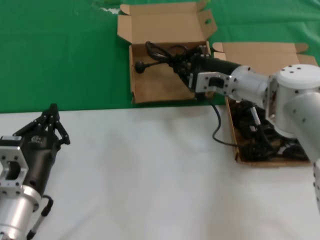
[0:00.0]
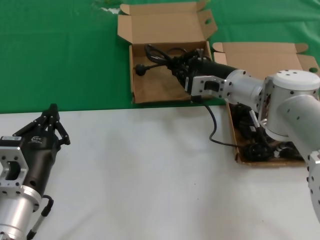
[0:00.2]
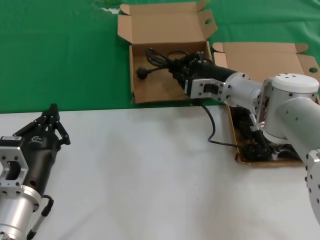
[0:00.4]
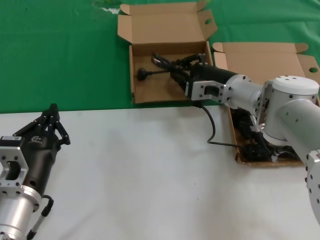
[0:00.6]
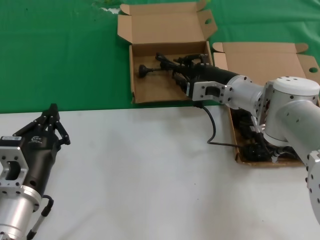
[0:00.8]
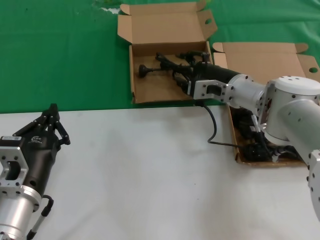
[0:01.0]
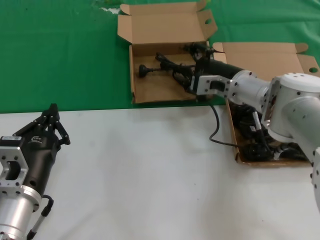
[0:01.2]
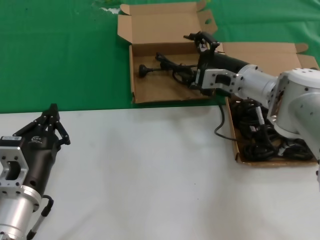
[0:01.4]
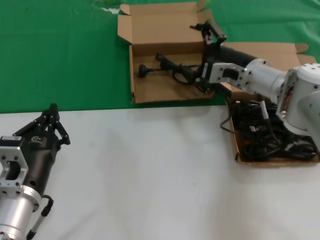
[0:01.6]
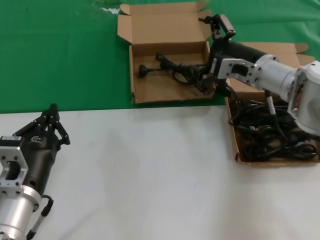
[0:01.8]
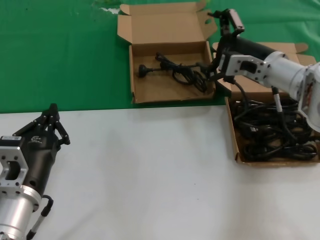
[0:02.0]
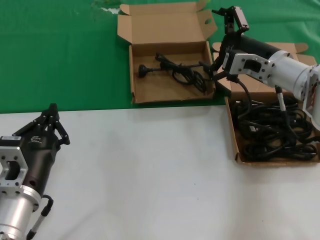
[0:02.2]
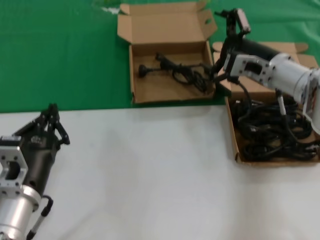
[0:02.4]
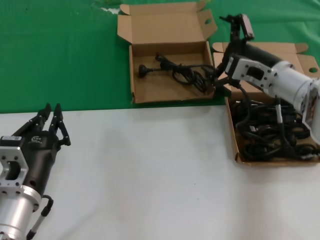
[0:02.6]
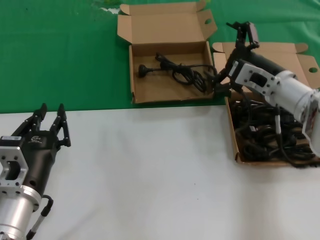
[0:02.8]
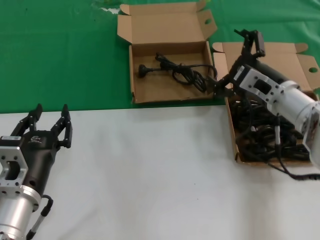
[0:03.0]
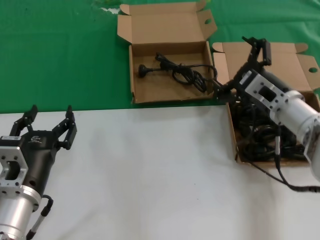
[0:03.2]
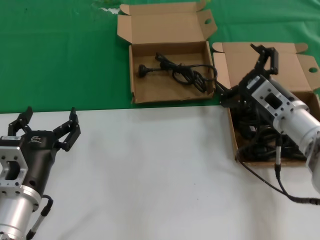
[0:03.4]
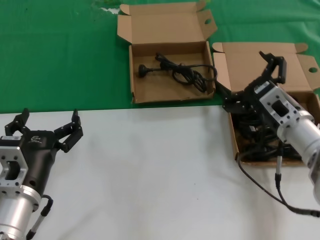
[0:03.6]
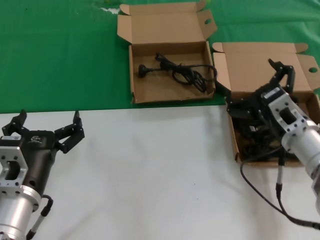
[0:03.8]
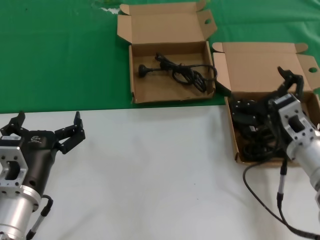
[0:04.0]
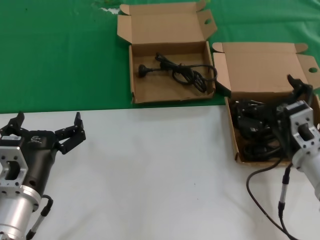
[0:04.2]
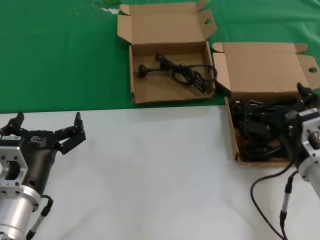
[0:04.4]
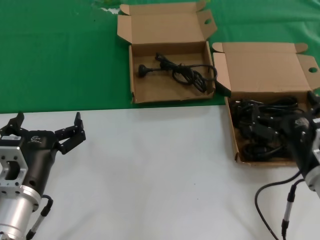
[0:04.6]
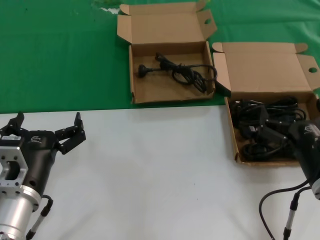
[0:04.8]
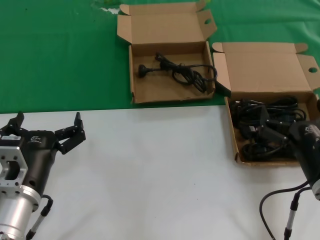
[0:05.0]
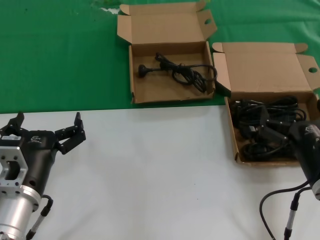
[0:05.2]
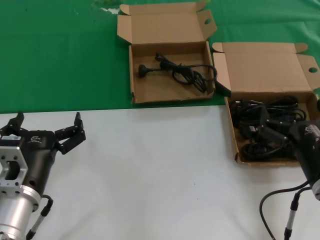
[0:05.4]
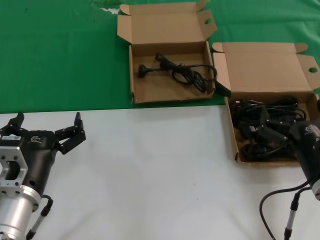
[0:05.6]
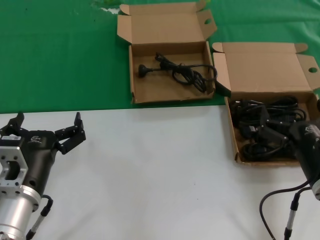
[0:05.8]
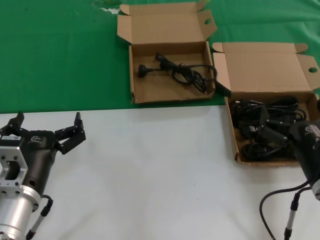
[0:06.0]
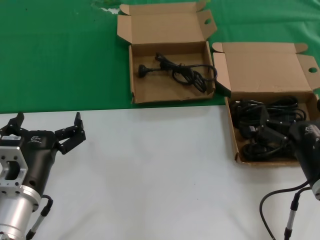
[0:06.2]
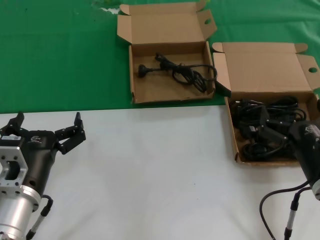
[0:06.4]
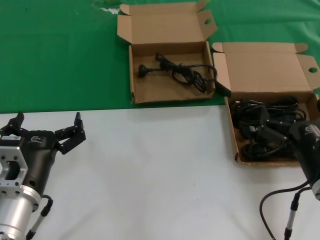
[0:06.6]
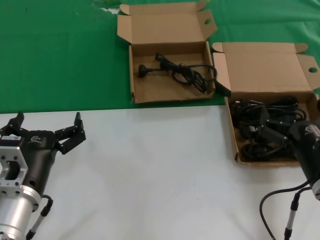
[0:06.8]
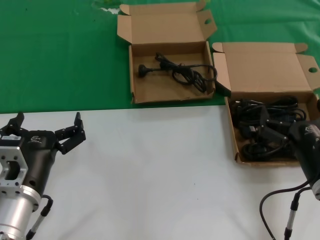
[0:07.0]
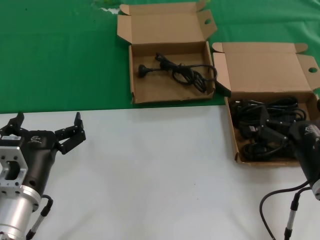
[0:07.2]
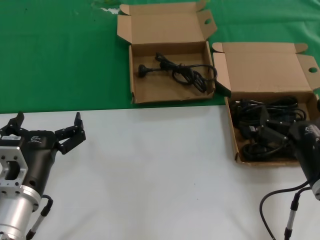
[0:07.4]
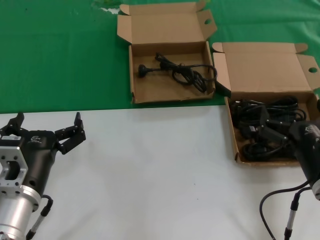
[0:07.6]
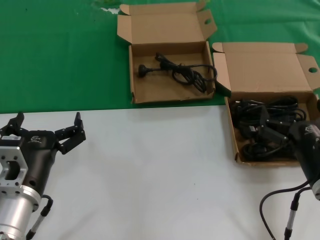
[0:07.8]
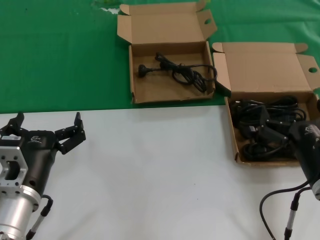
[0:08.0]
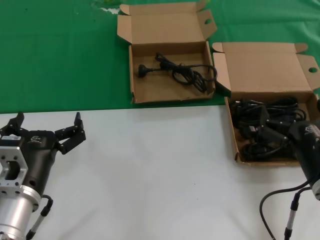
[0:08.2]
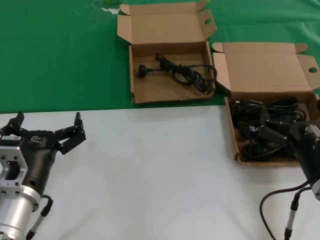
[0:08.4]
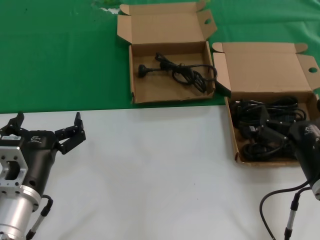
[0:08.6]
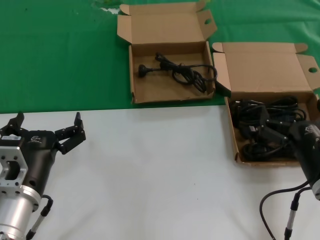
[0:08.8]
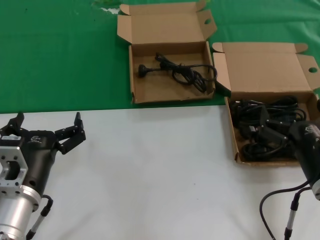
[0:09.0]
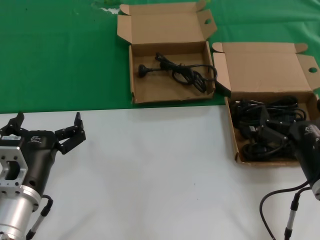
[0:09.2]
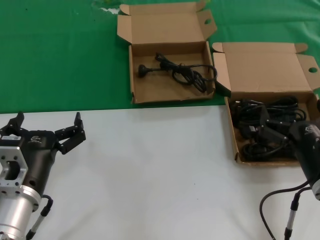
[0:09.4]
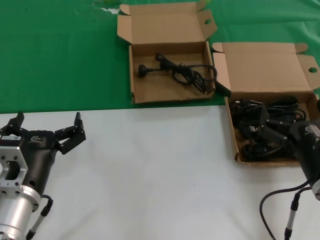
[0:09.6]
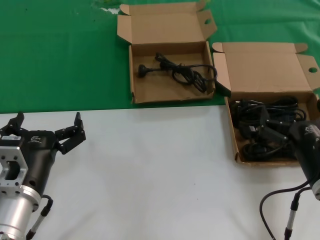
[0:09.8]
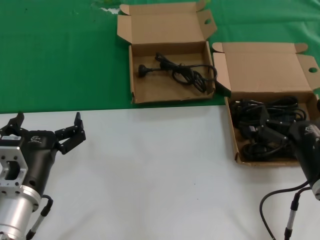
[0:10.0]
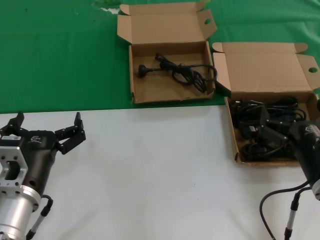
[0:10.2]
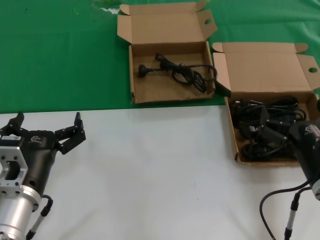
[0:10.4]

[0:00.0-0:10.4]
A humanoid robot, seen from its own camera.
Task of the whole recording: take the parts from the box containing them and put them into an empty box.
0:00.0 to 0:01.4: The hands stay close to where they were, moving slightly.
0:01.4 to 0:03.0: The right hand heads backward and to the right, covering roughly 10 cm.
0:03.0 to 0:04.4: The right hand shifts roughly 15 cm backward and downward.
0:04.4 to 0:06.0: The hands move only a little.
0:06.0 to 0:10.4: The two hands keep their place.

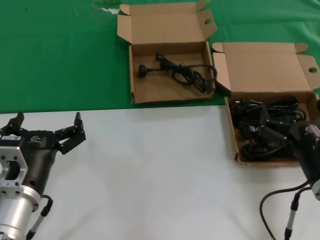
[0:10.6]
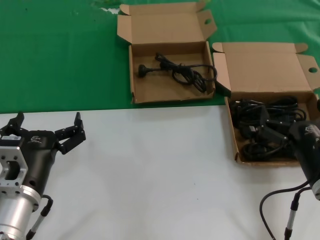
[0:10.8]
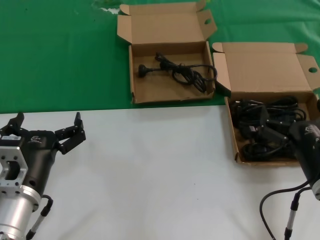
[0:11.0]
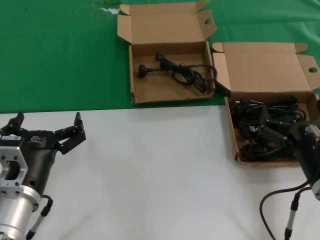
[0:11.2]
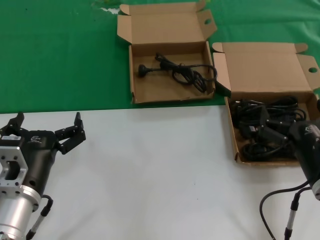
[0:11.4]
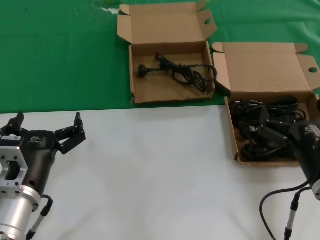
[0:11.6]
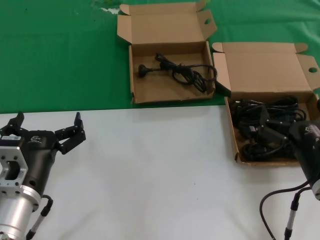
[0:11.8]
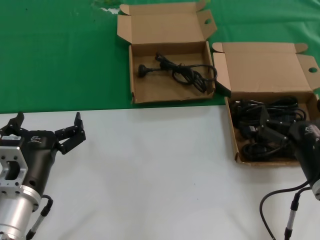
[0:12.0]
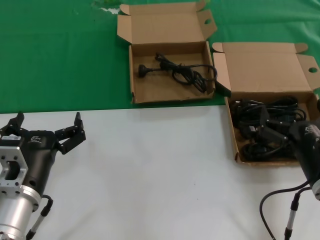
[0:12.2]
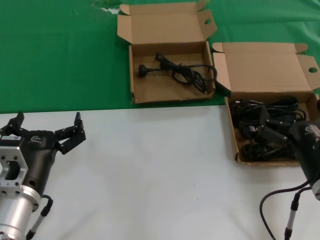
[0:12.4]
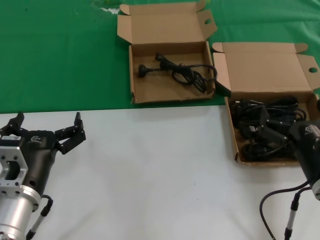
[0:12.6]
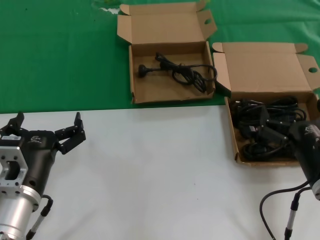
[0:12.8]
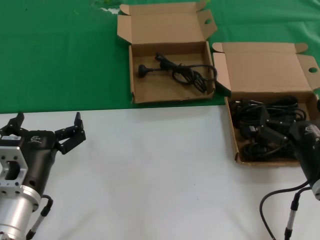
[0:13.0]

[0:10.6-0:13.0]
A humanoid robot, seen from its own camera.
Task of the whole recording: take the parts from the box containing them and put them into an empty box.
0:10.6 to 0:13.0: The two hands keep their place.
